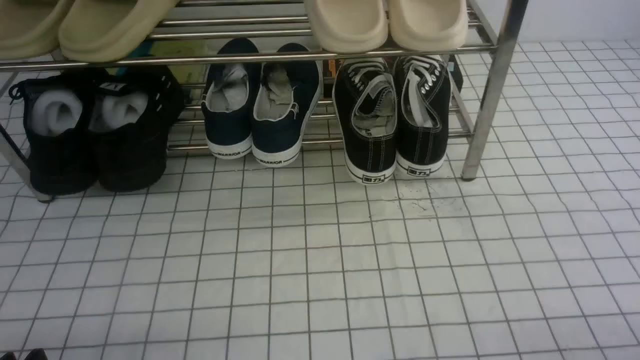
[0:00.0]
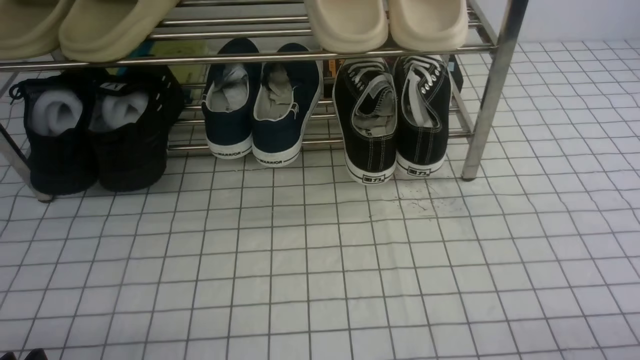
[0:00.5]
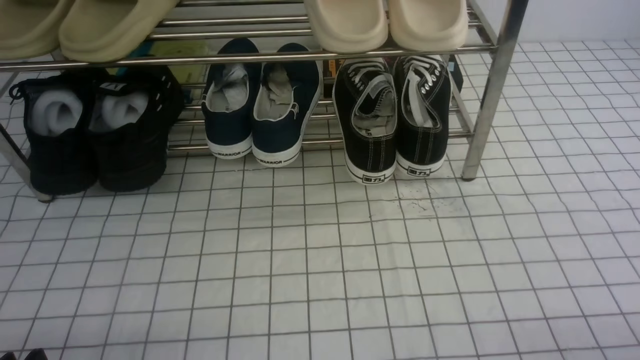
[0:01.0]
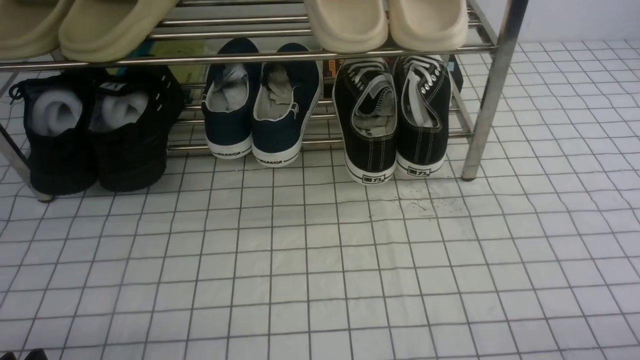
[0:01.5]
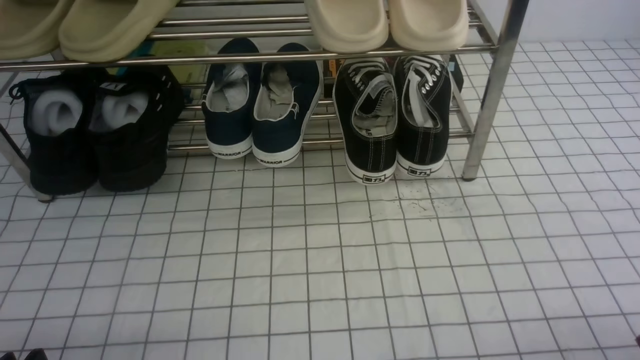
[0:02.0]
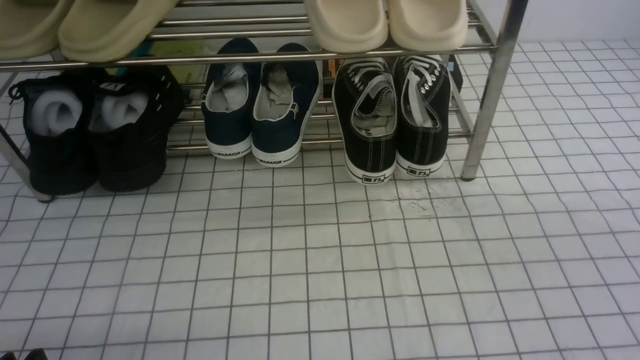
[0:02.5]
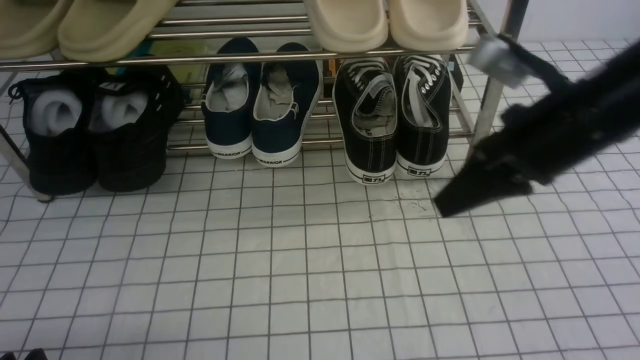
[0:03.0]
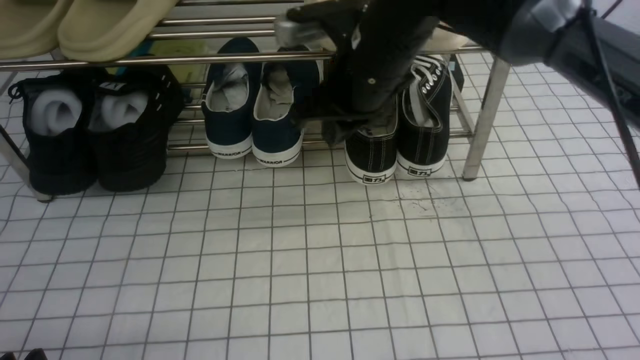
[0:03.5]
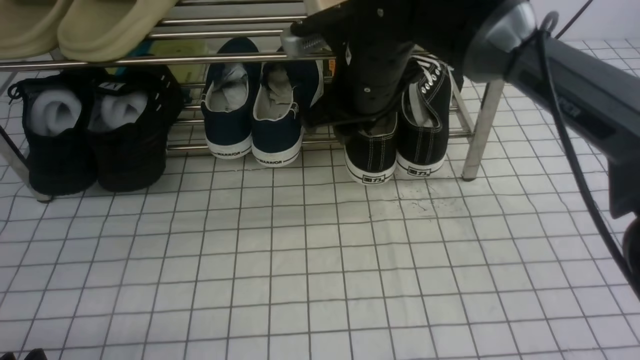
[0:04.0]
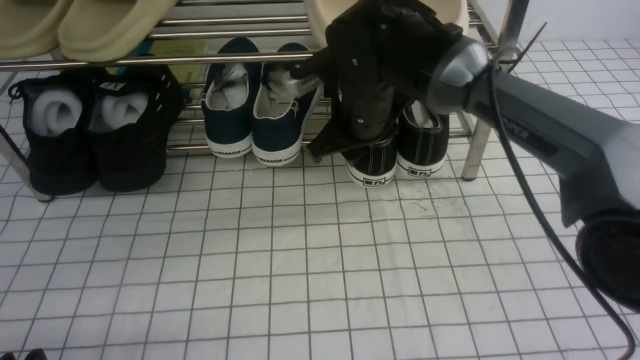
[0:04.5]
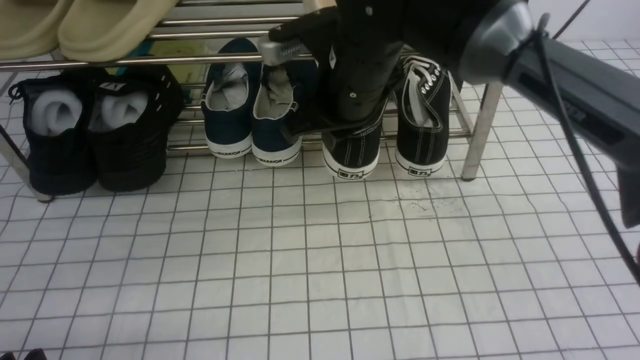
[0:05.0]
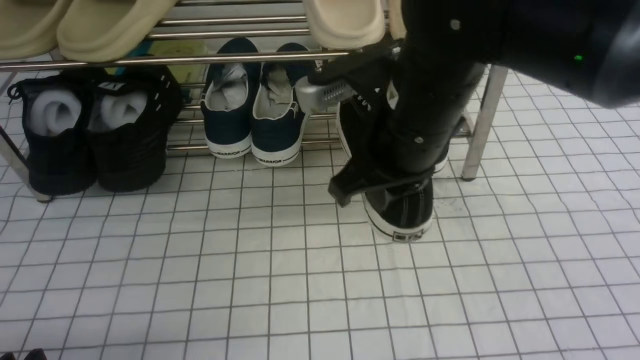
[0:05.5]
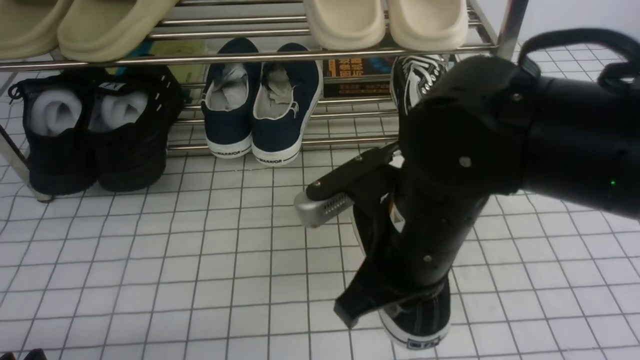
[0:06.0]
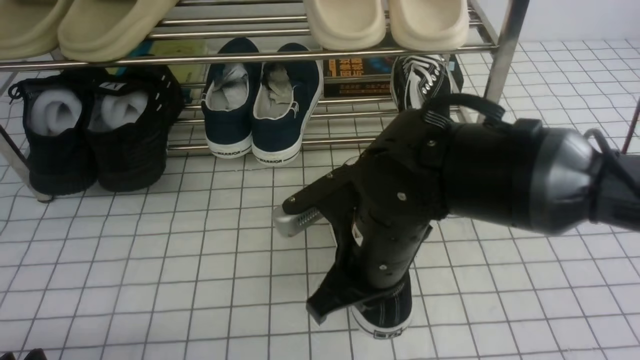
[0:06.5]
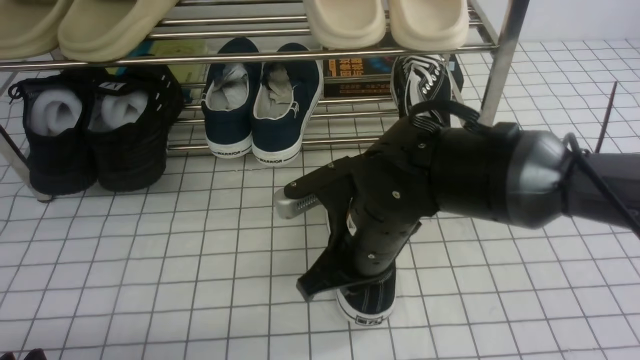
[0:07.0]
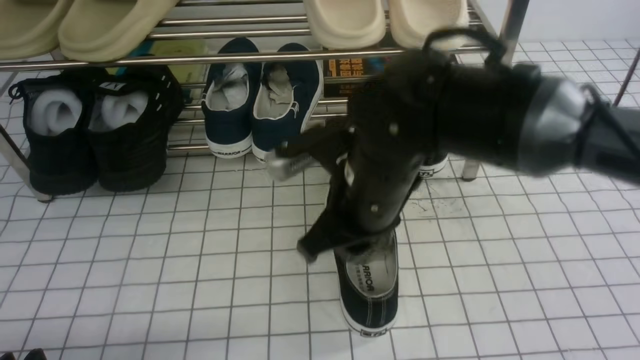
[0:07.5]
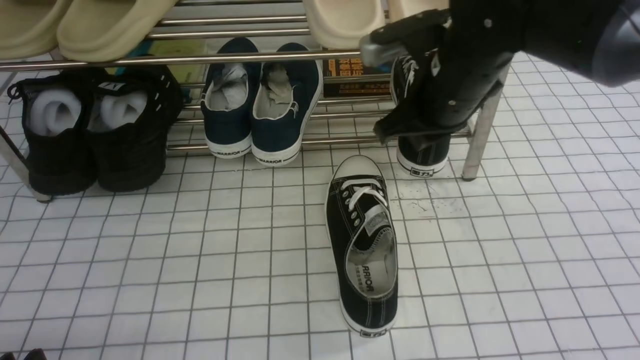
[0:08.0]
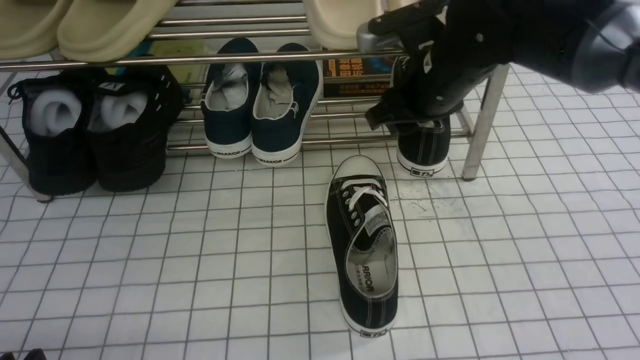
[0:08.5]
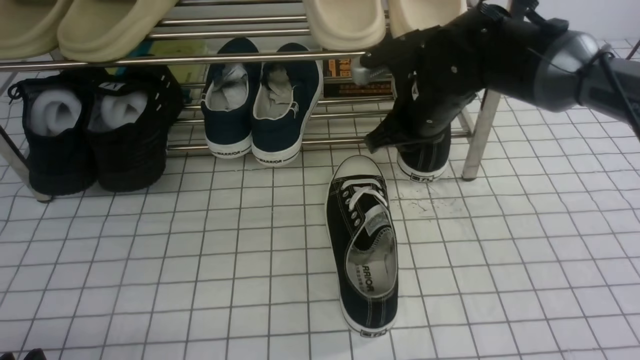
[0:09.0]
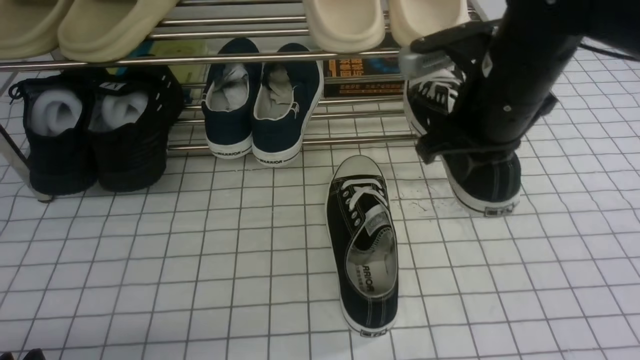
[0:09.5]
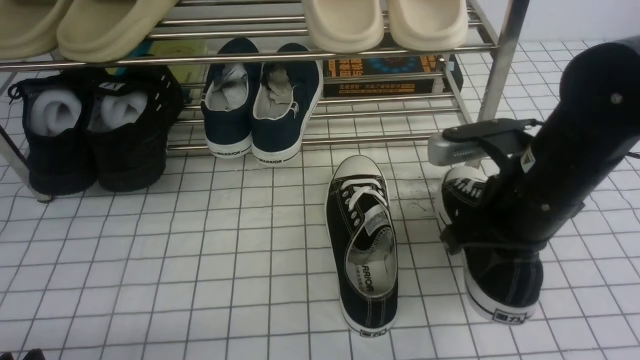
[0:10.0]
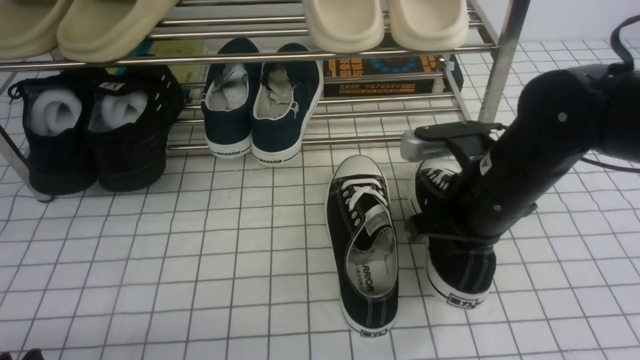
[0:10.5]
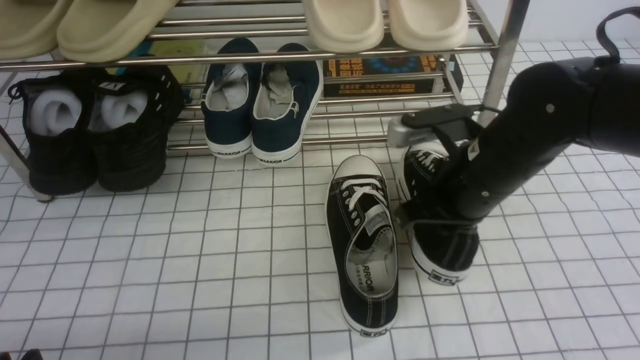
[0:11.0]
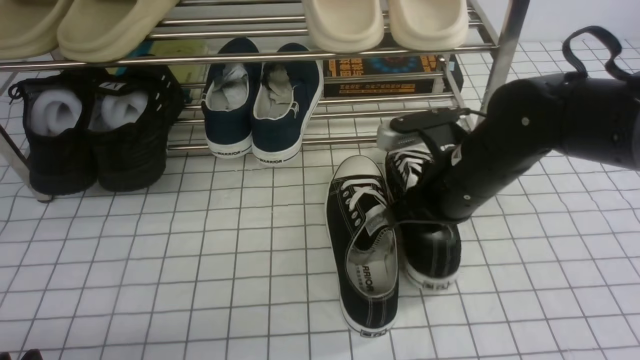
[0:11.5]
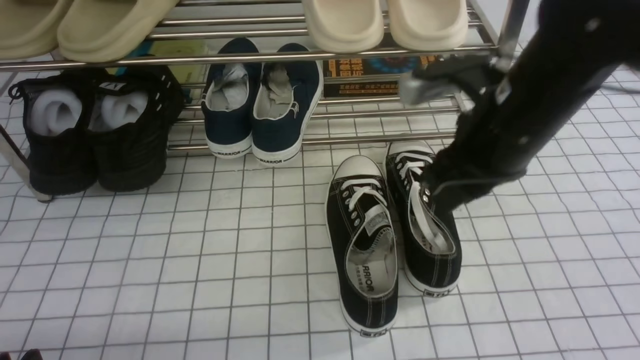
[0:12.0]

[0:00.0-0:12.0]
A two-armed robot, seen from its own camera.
Step, 0:00.0 to 0:04.5: use the right arm to clamp a shoe on the right side of the shoe rack.
Step, 0:05.0 to 0:07.5: use the right arm to take out the clamped shoe from the shoe rack and put it down.
Step, 0:08.0 to 0:08.5: use the right arm to clamp a shoe on the right side of the shoe rack.
Step, 0:09.0 to 0:11.5: use the right arm to take out the clamped shoe from the shoe rack and put it down.
0:02.0 to 0:04.0: The right gripper heads forward and to the left, covering some 40 cm, and opens its fingers.
0:04.0 to 0:06.0: The right gripper shifts some 15 cm backward, and closes up.
0:06.0 to 0:08.0: The right gripper is displaced forward by approximately 15 cm.
0:08.0 to 0:10.0: The right gripper moves backward and to the right, some 10 cm, and opens and closes again.
0:10.0 to 0:12.0: The right gripper heads upward, covering about 5 cm, and opens its fingers.

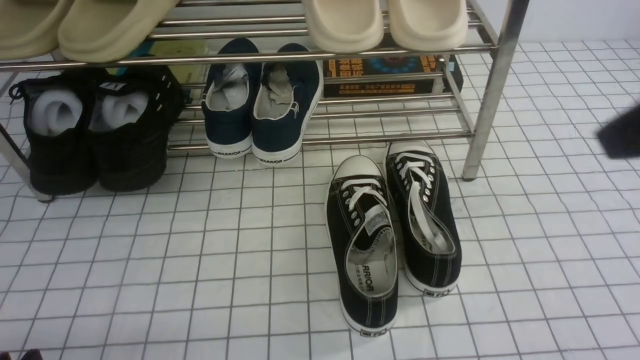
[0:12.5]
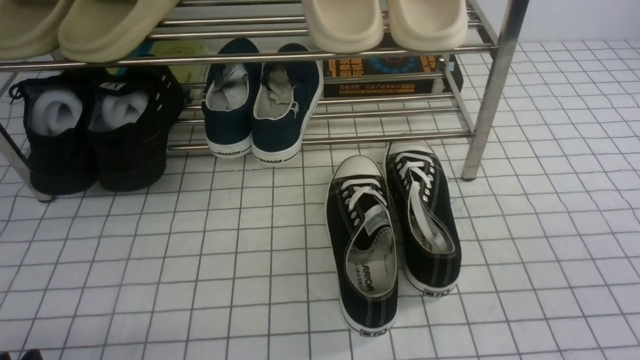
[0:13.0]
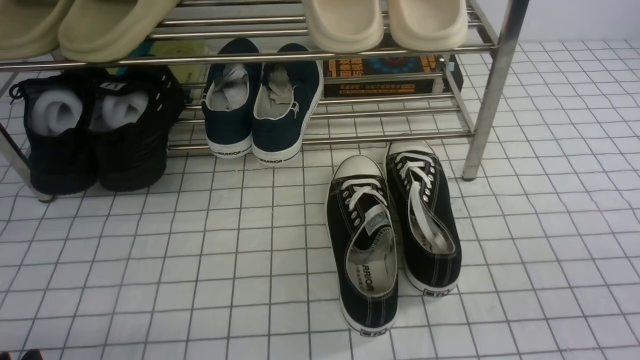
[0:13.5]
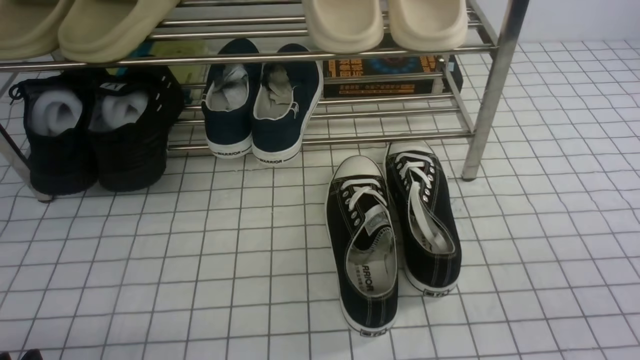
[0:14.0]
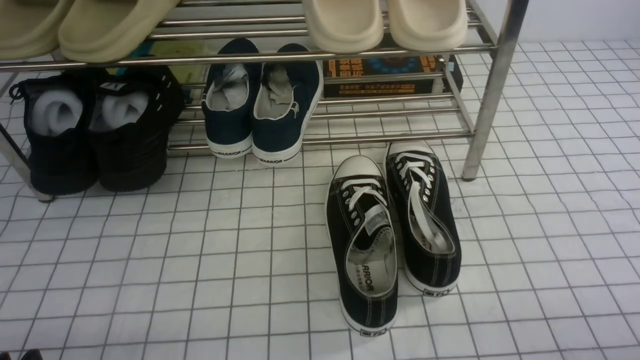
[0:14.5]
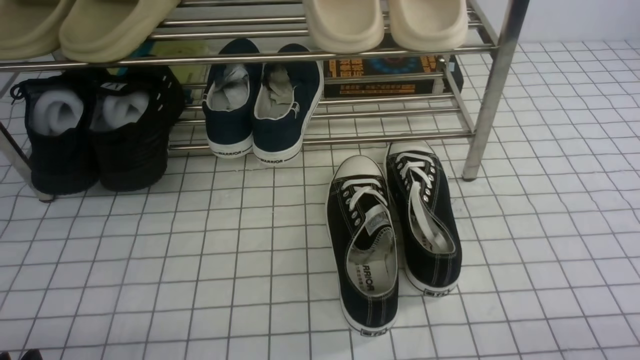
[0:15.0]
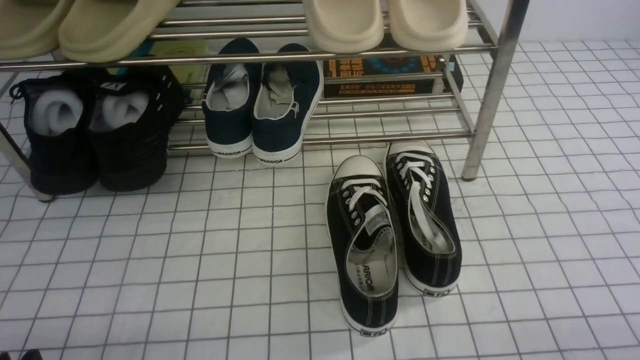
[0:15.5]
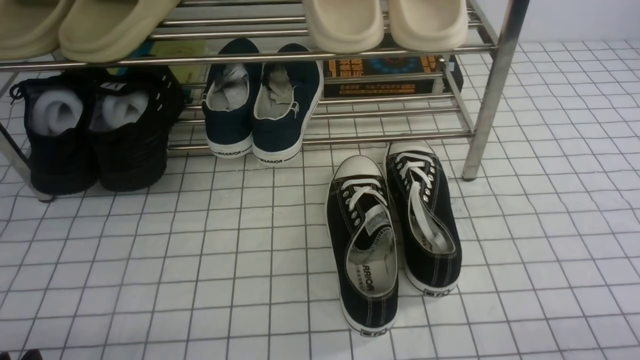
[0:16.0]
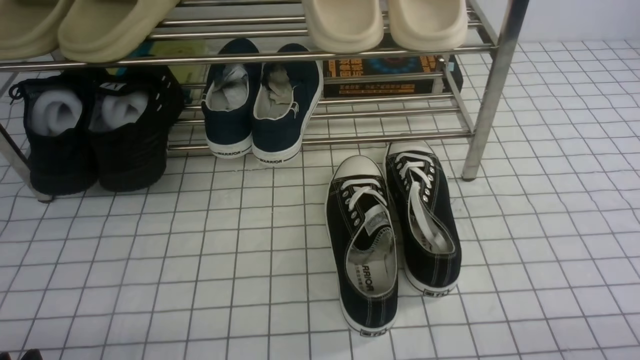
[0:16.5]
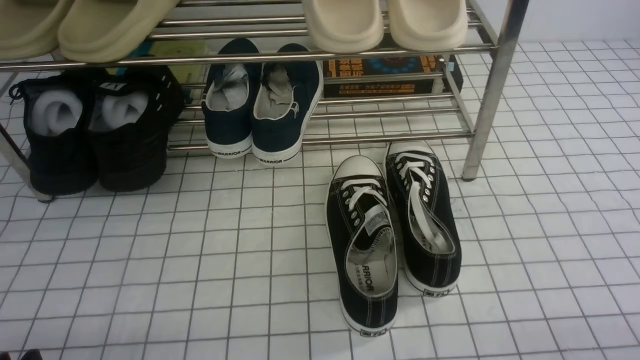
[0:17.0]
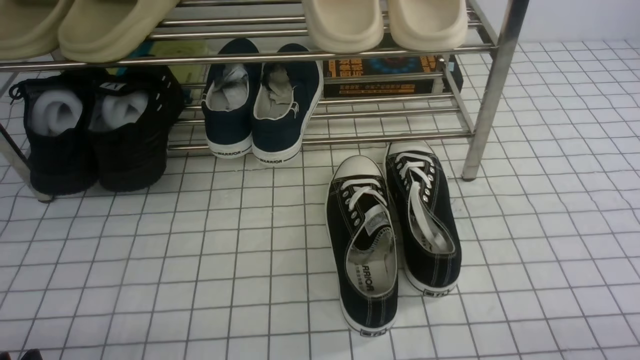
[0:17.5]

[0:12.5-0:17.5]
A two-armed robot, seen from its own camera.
0:12.5 to 0:15.0: The right gripper shifts approximately 25 cm downward.
0:15.0 to 0:17.5: Both grippers stay about where they are.

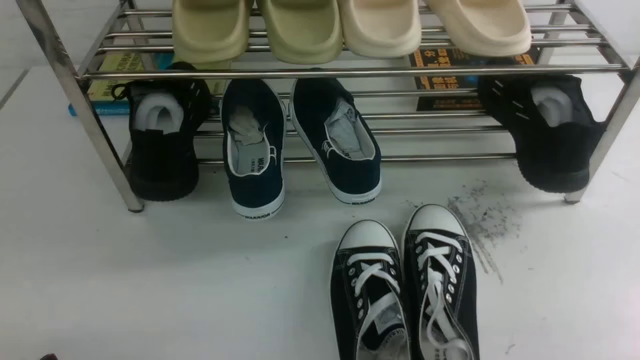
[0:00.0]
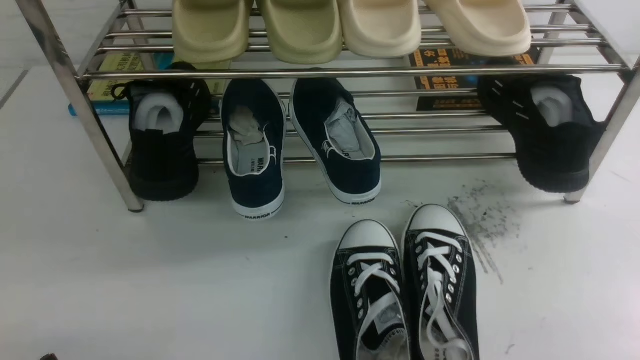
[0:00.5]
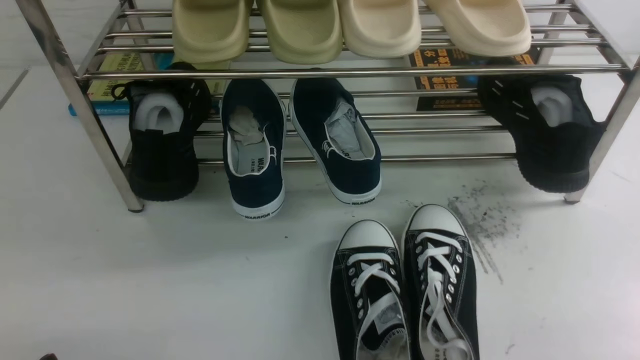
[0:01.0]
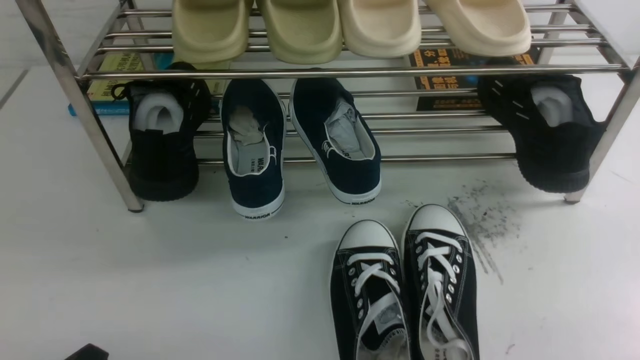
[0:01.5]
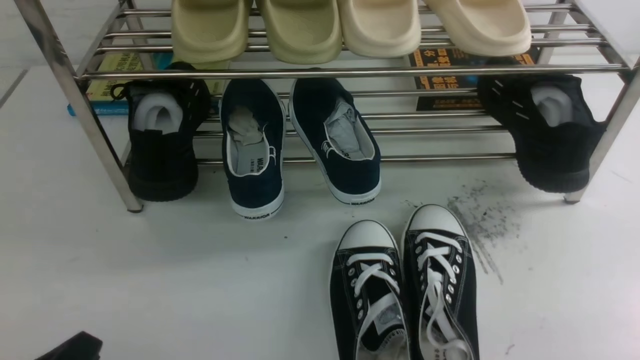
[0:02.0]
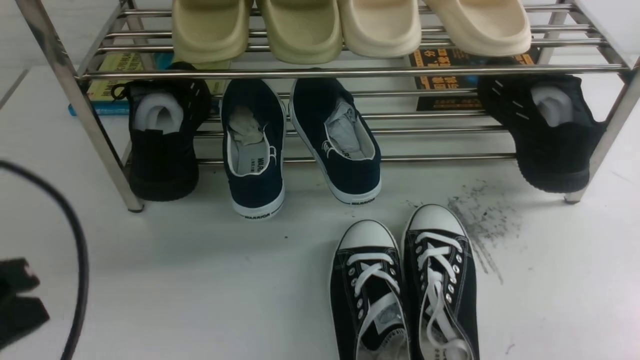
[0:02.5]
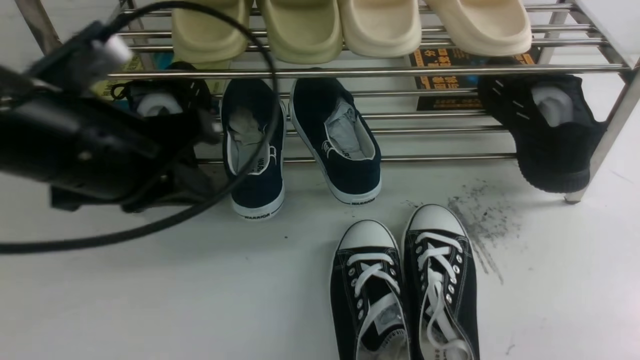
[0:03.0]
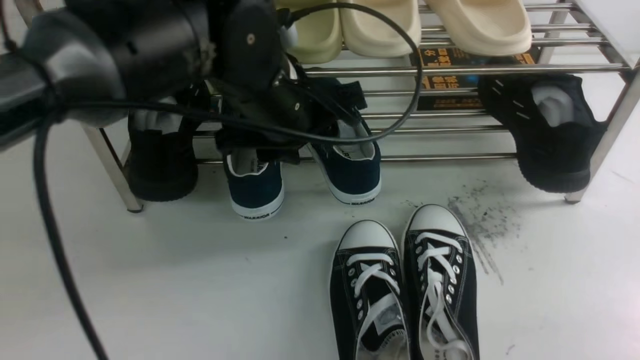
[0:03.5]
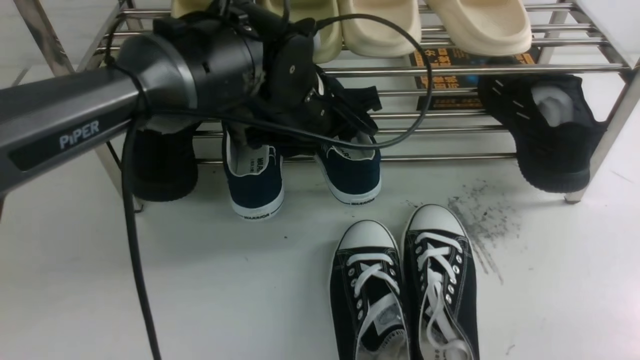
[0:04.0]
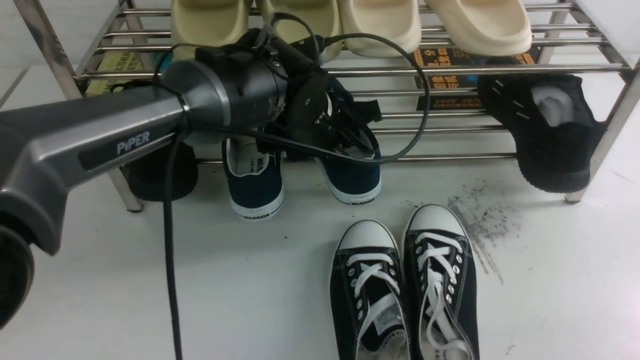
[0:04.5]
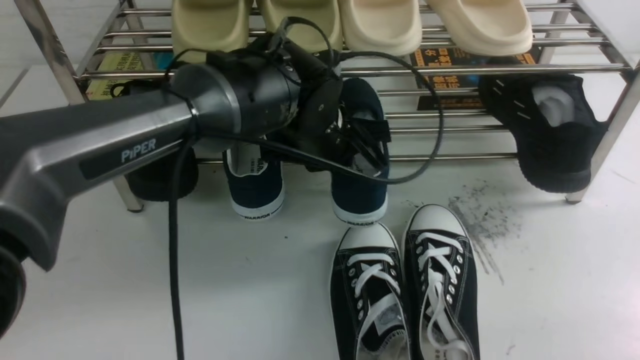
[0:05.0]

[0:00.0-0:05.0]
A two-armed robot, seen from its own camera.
0:00.0 to 0:02.5: The left gripper moves upward, roughly 15 cm, and closes its fingers.
0:02.5 to 0:05.0: The left gripper goes roughly 35 cm to the right and forward, and opens, then closes again.
